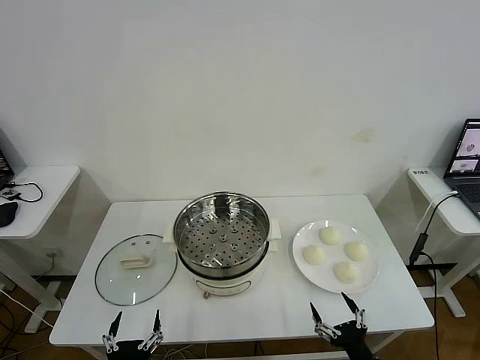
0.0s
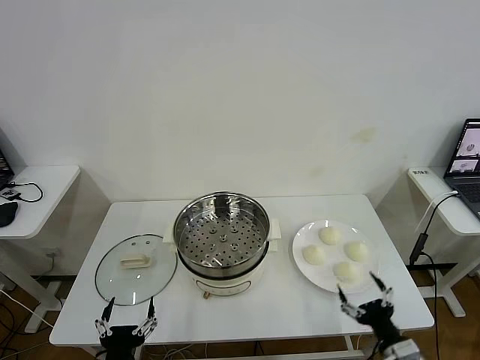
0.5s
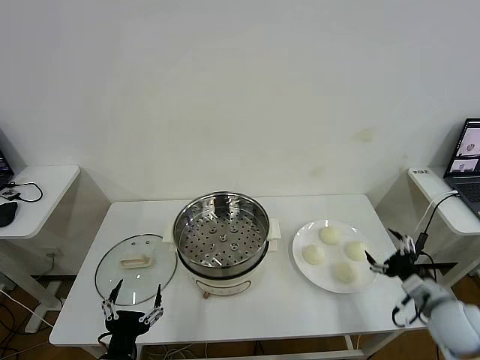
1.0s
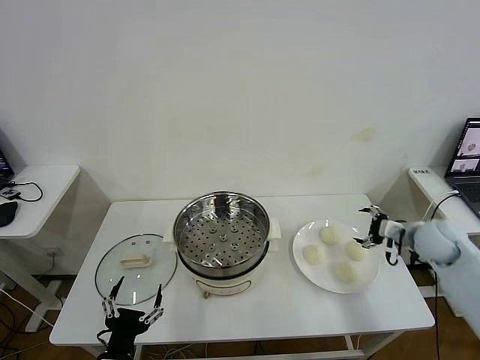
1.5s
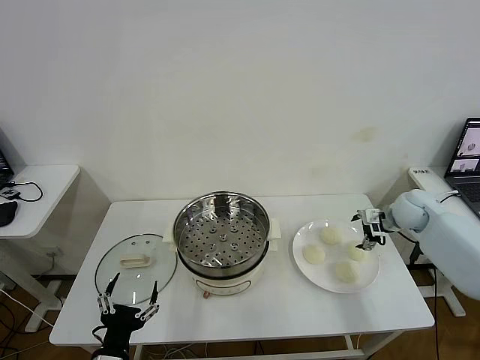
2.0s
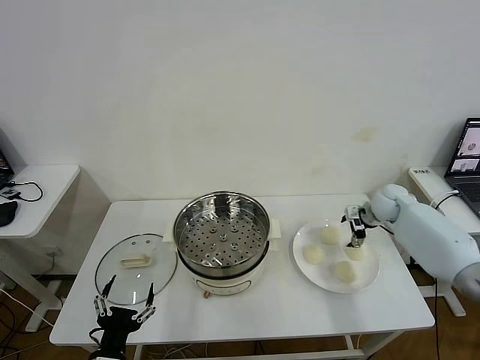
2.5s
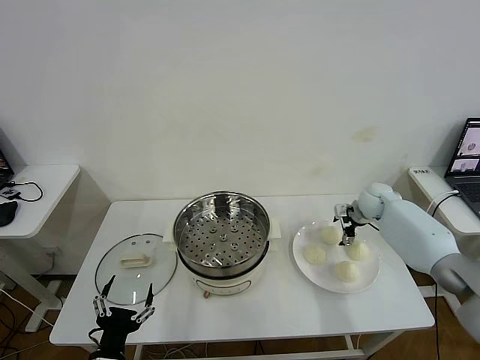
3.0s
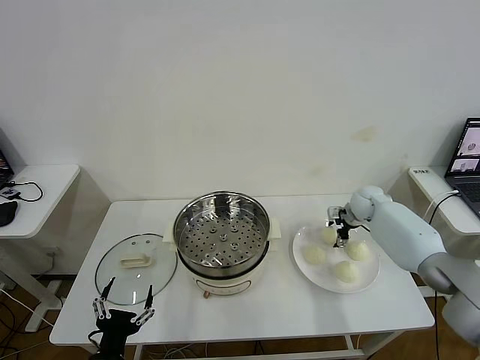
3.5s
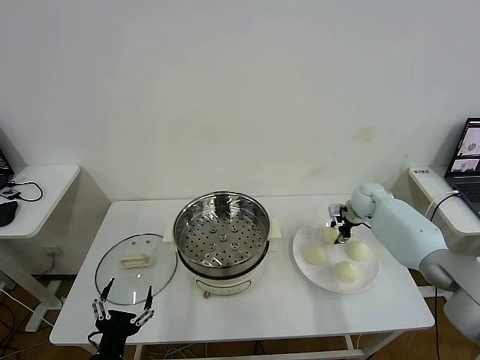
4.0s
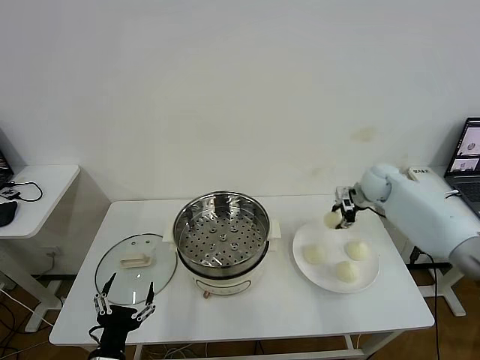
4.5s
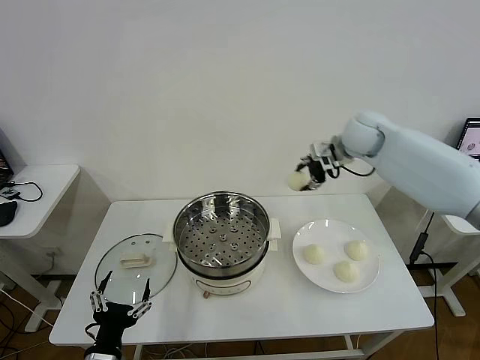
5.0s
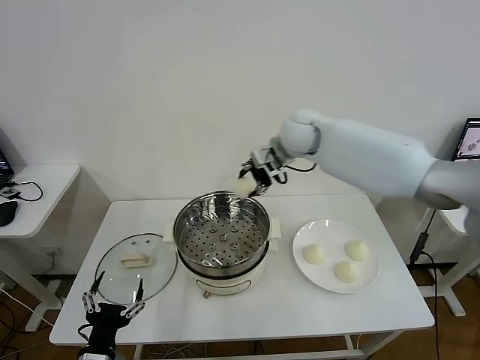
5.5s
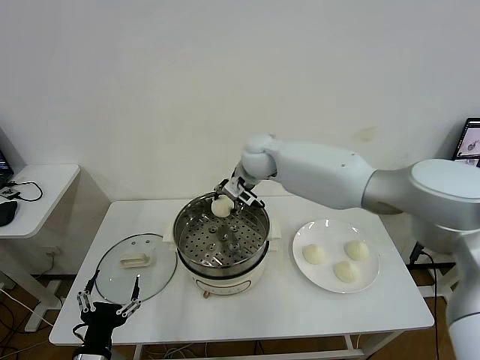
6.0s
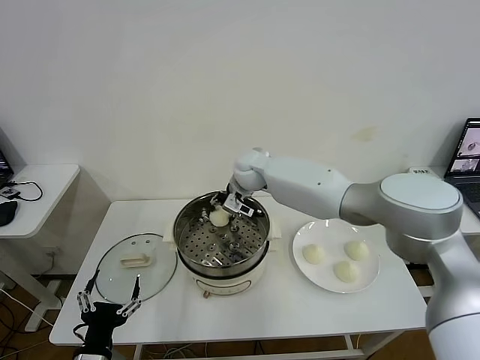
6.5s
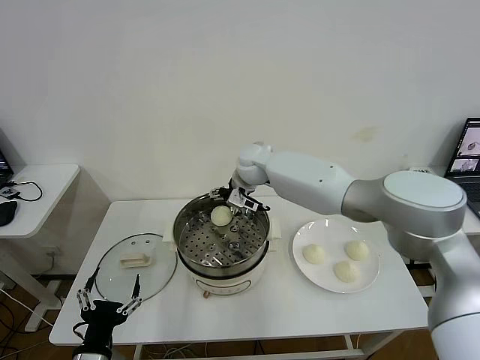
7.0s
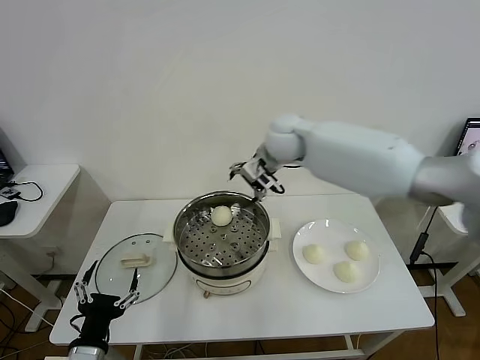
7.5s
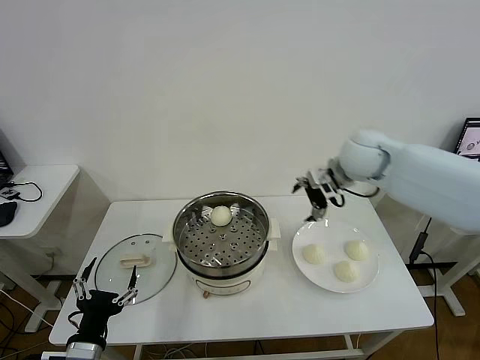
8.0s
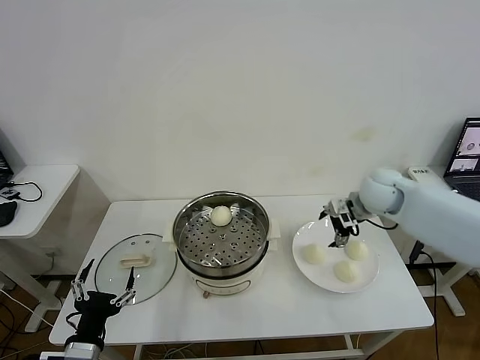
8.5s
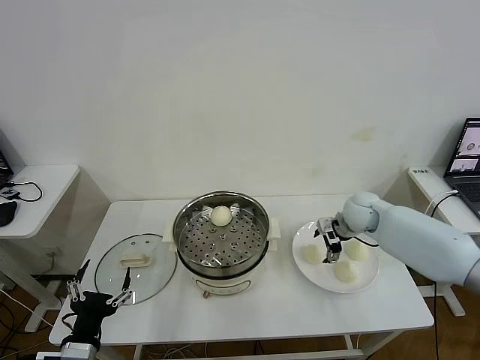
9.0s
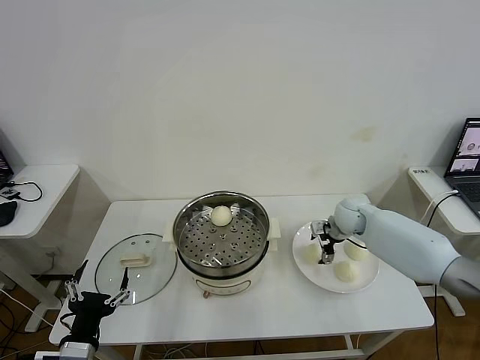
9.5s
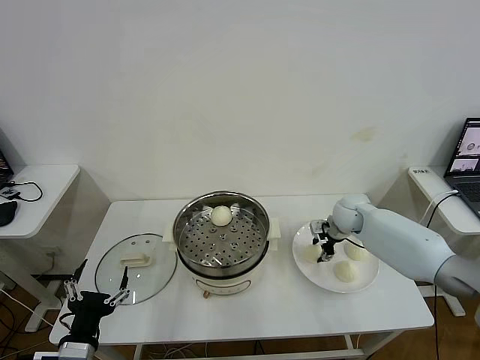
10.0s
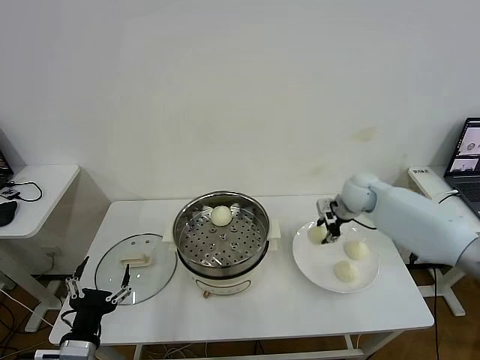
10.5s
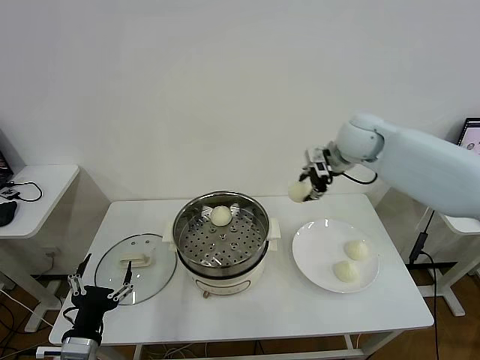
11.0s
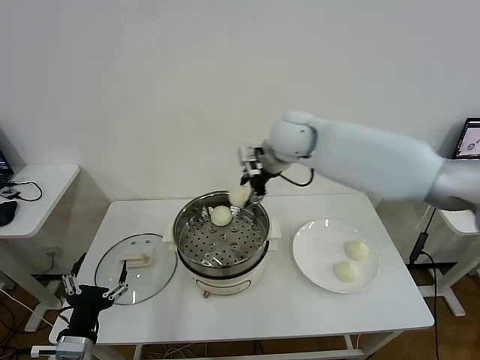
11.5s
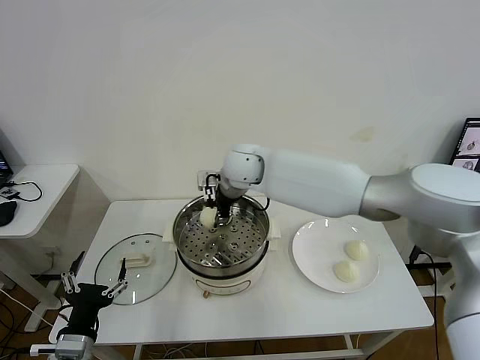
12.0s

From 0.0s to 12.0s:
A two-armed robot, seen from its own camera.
Task of the whole recording: take steamed baozi put them in steamer then cover it.
Step, from 0.0s to 4.0s: Grasp the baozi in the plate with right gripper.
Step, from 4.5s to 7.0s: Place the baozi on the steamer with right gripper.
Step, from 7.5s to 10.0s: Grasp the baozi in the plate with right gripper.
From 2.0s to 4.0s: The right gripper travels forward and to the left by some 10 cm, and closes up.
From 4.0s to 6.0s: The right gripper travels to the left and upward by some 35 cm.
From 6.0s to 8.0s: The right gripper moves to the right, approximately 20 cm, and opens.
From 8.0s to 10.0s: The right gripper is displaced downward by approximately 20 cm, and closes its fingers.
From 10.0s to 12.0s: The right gripper moves to the left and upward, about 35 cm.

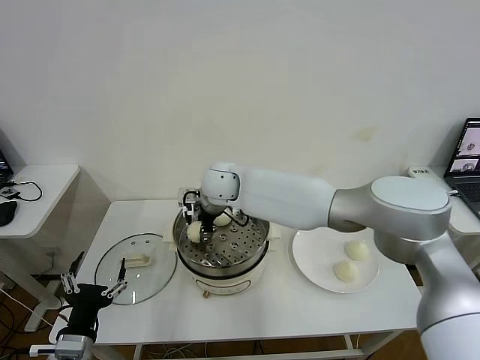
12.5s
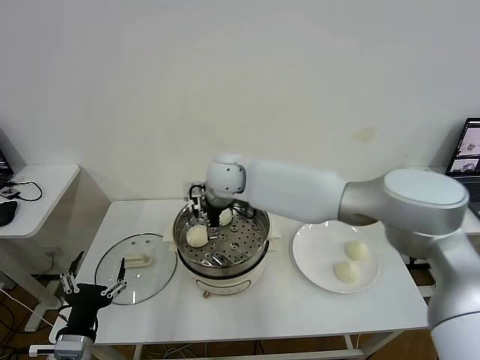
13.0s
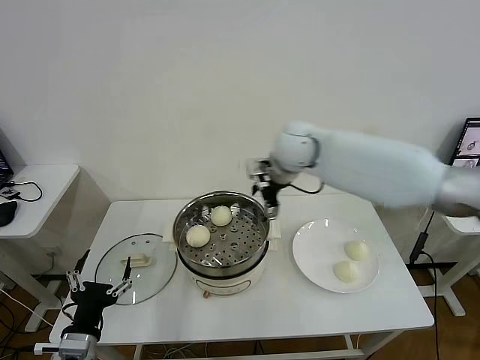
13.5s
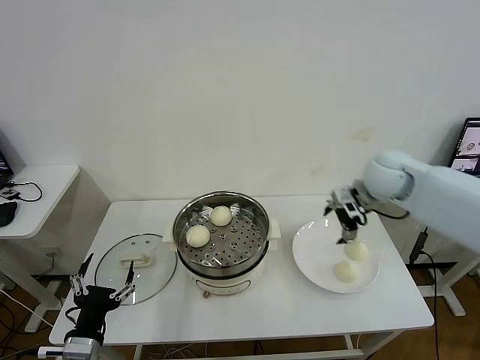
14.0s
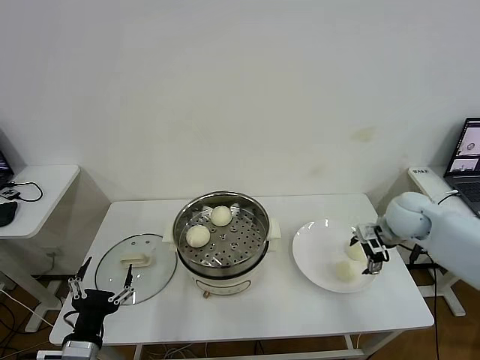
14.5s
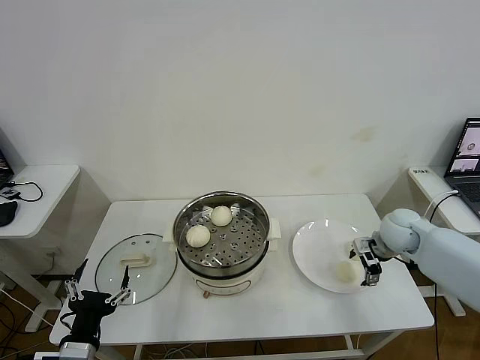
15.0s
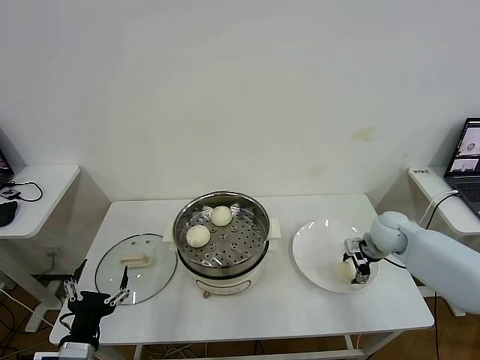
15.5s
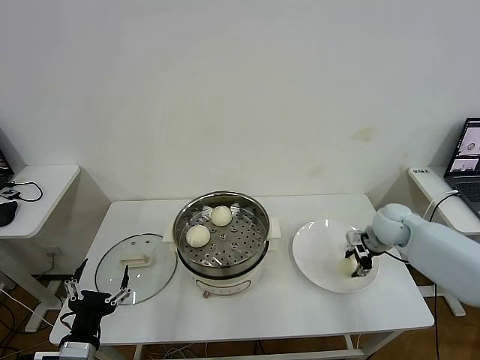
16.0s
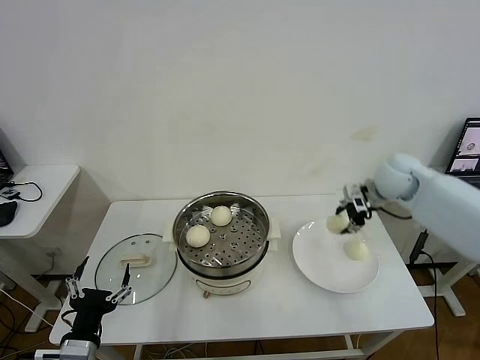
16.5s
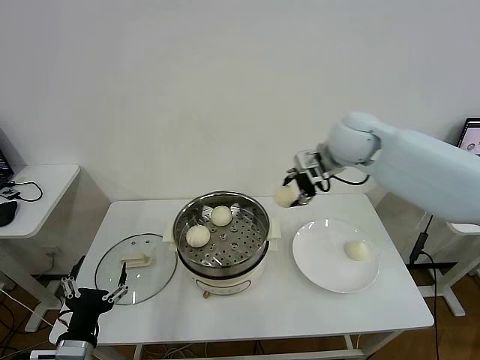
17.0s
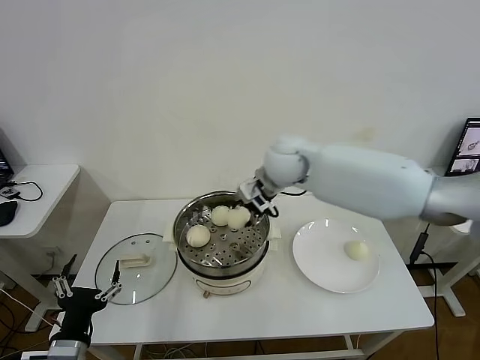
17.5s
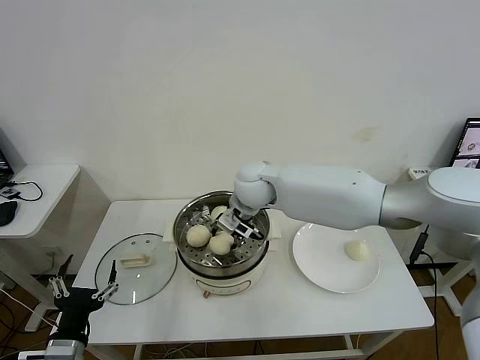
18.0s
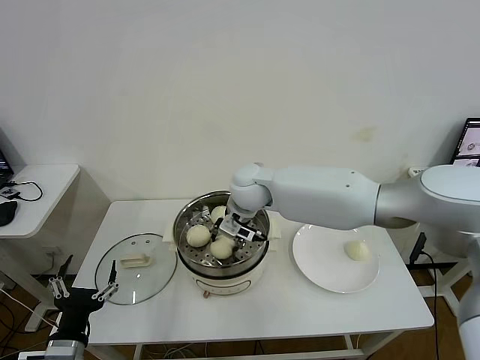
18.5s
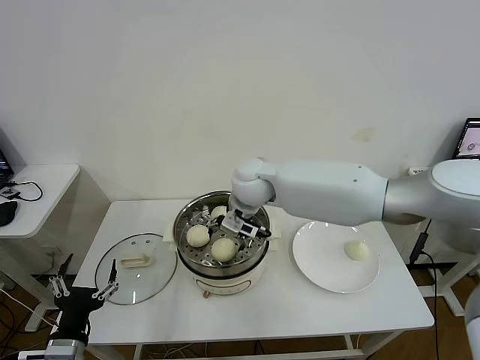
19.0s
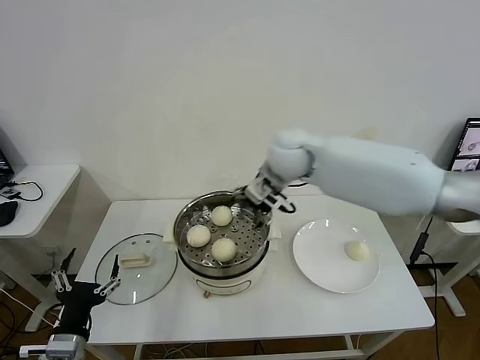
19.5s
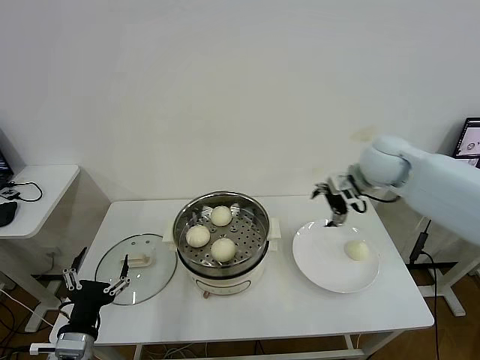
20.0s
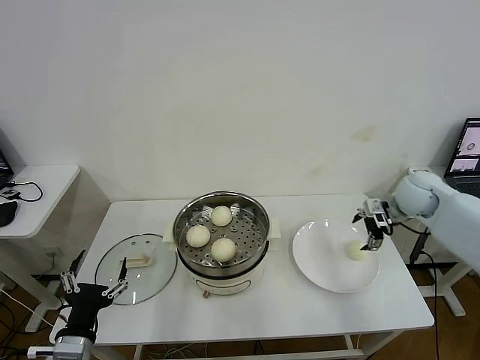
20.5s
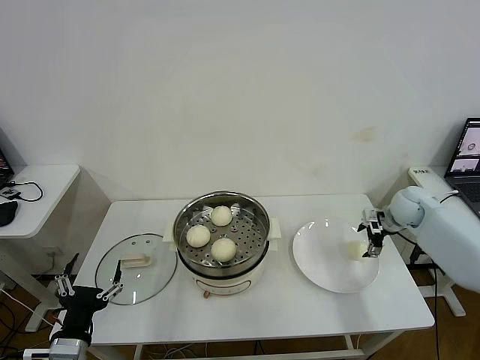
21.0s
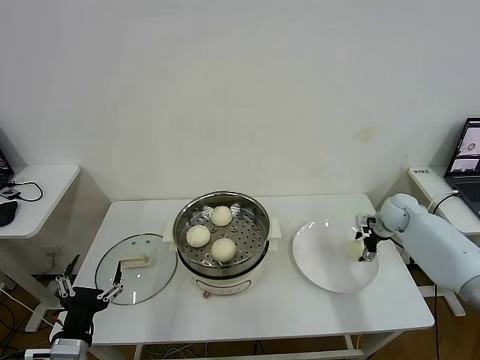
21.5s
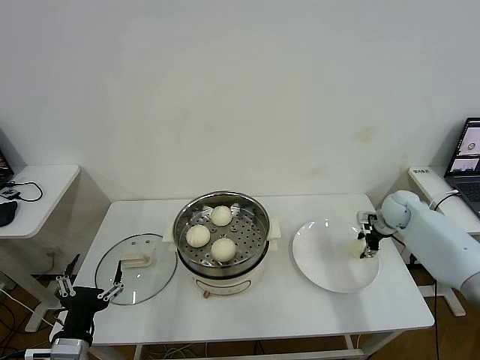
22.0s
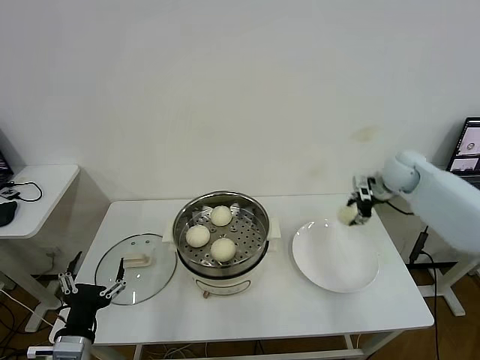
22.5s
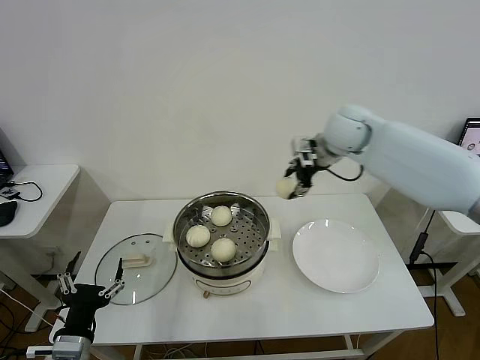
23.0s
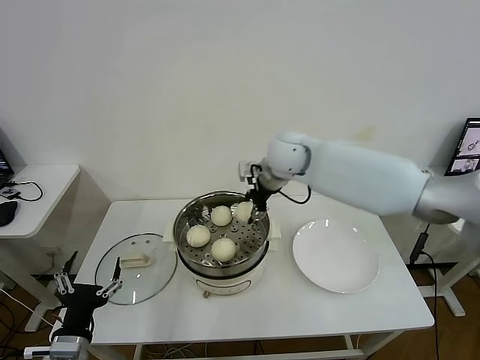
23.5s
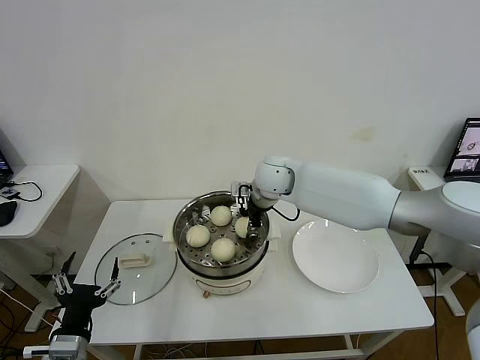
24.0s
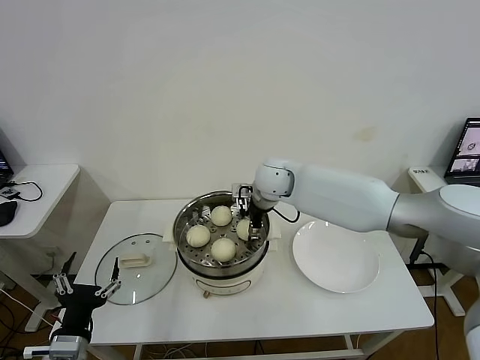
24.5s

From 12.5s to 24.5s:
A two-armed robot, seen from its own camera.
Task of the whole recording: take steamed baozi put them in steamer then cover it.
Step, from 13.0s to 15.5s: Grasp the baozi in the plate with right gripper.
Step, from 16.0s to 19.0s: Place the baozi on the steamer with right gripper.
Step, from 19.5s to 22.0s: Grasp the baozi in the plate with right gripper.
From 12.5s to 14.5s: The right gripper shifts approximately 40 cm to the right, and opens up.
From 14.5s to 16.5s: The right gripper moves upward and forward, roughly 10 cm, and closes.
From 16.5s to 18.5s: The right gripper is displaced to the left by roughly 30 cm.
From 18.5s to 20.5s: The right gripper moves to the right, approximately 40 cm, and opens.
From 20.5s to 22.5s: The right gripper moves forward, approximately 5 cm, travels downward and back again, approximately 10 cm each way, and closes up.
From 22.5s to 24.5s: The right gripper is displaced to the left by roughly 30 cm, and opens its fingers.

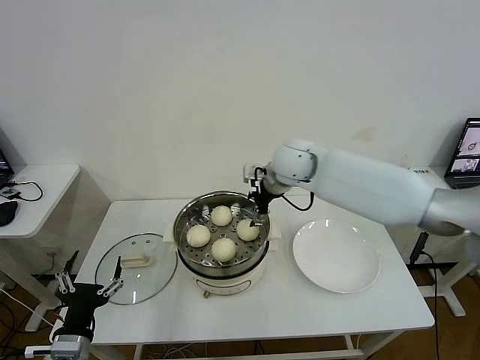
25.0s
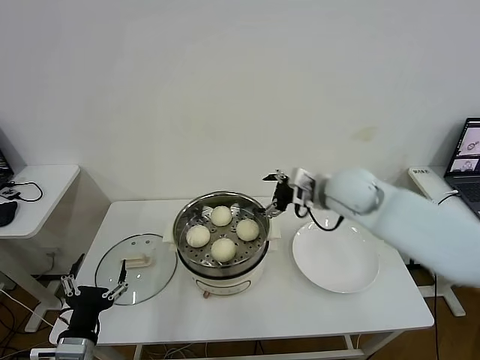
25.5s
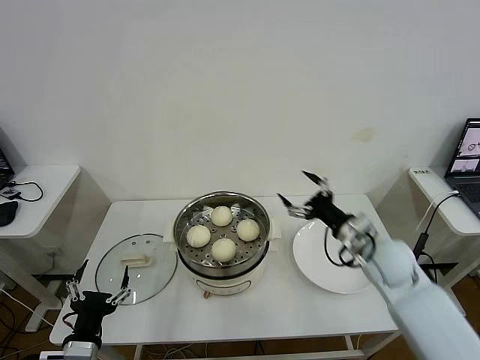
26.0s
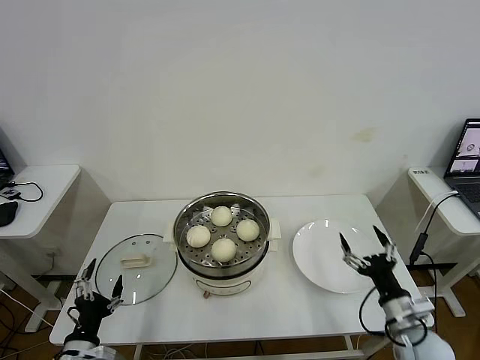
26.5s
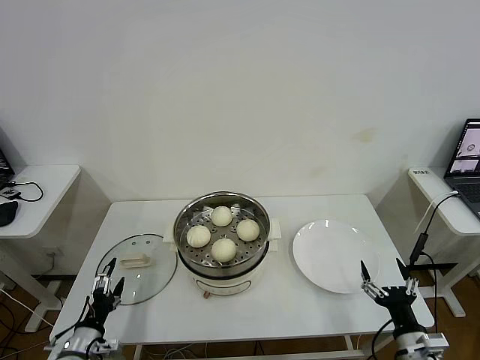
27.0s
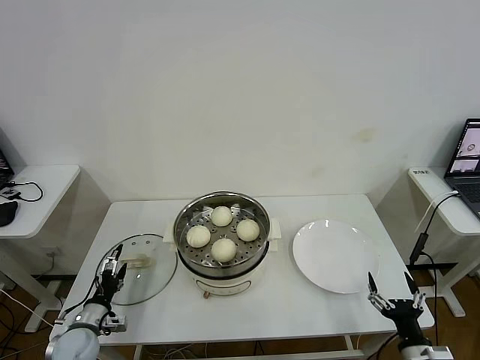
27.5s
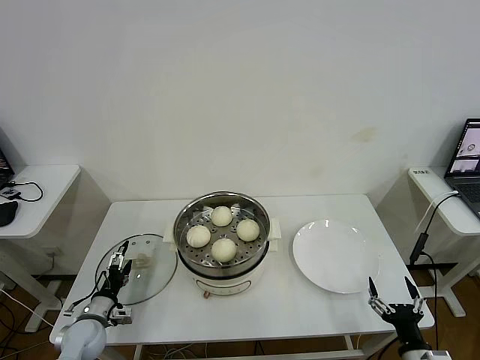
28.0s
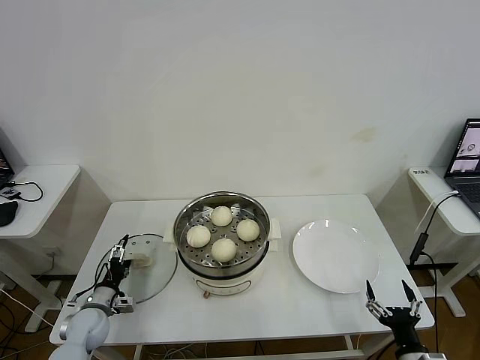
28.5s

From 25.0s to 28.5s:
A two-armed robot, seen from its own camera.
Task of the whole recording: take steamed baozi put them in steamer then cover it.
From 25.0s to 27.0s: The right gripper shifts about 50 cm backward, downward and to the right. The left gripper heads downward and to the left, covering some 15 cm.
From 27.0s to 28.5s: The left gripper goes roughly 15 cm forward.
